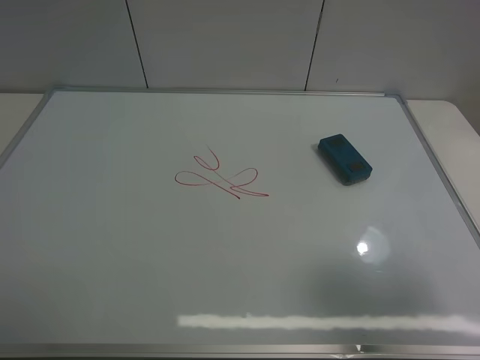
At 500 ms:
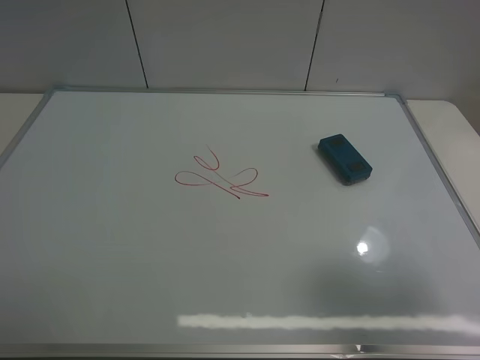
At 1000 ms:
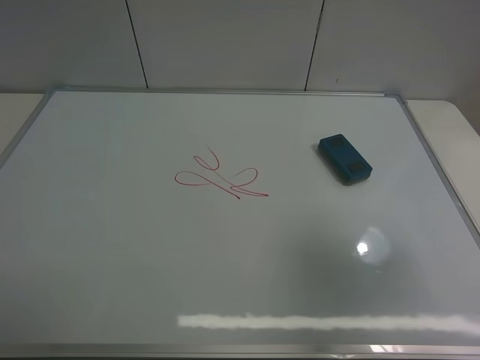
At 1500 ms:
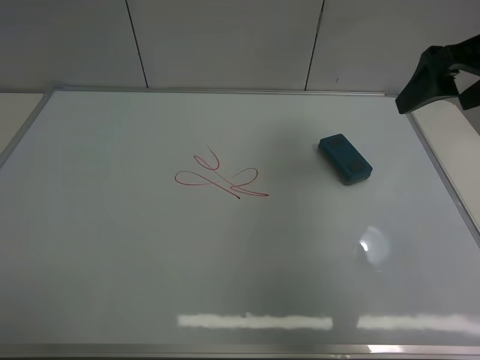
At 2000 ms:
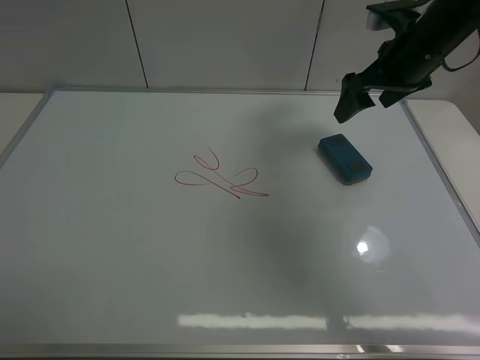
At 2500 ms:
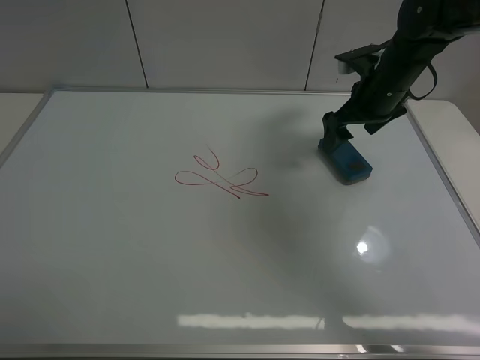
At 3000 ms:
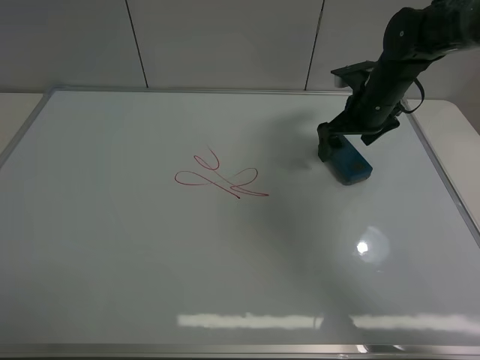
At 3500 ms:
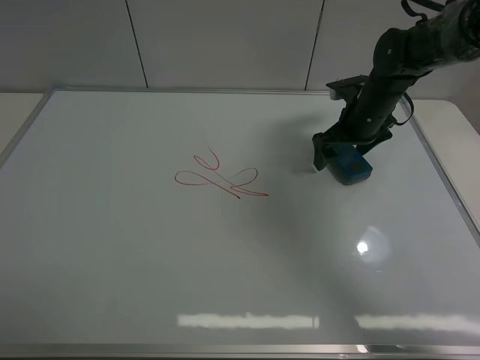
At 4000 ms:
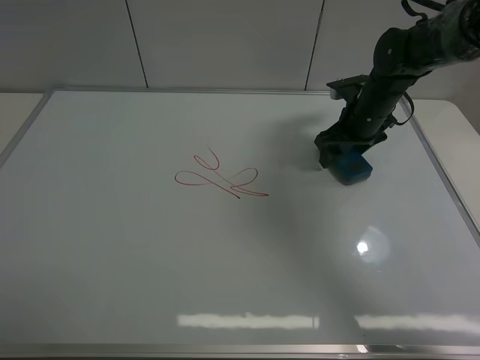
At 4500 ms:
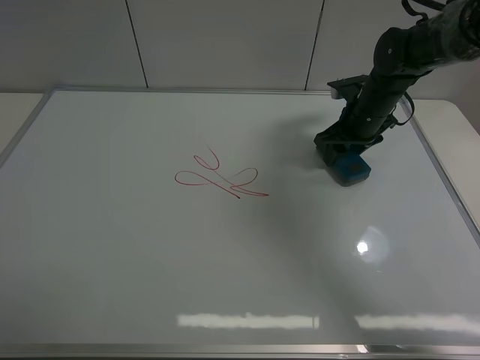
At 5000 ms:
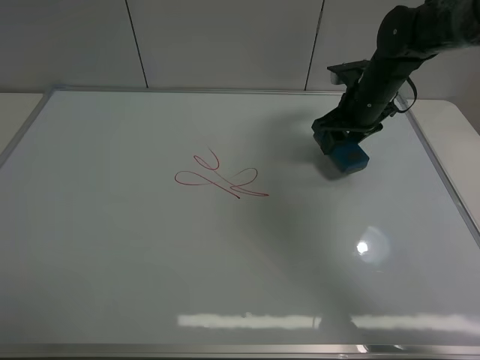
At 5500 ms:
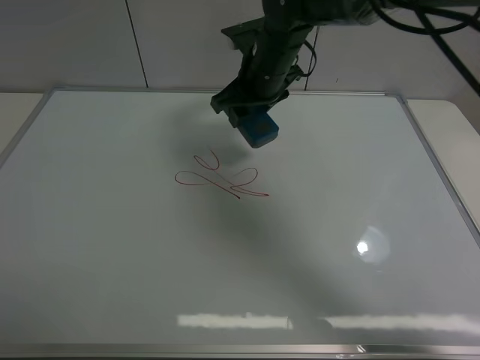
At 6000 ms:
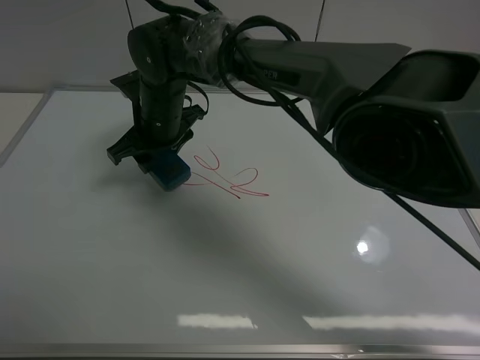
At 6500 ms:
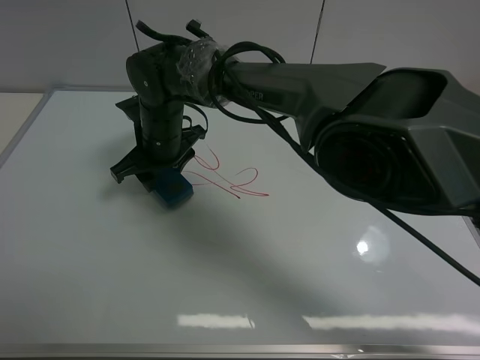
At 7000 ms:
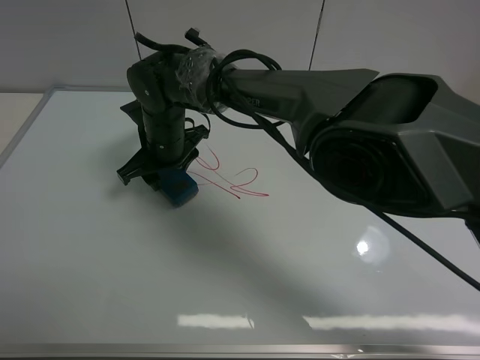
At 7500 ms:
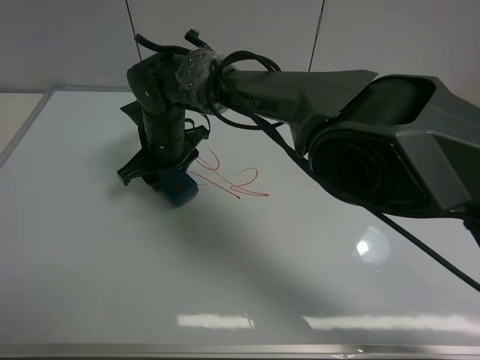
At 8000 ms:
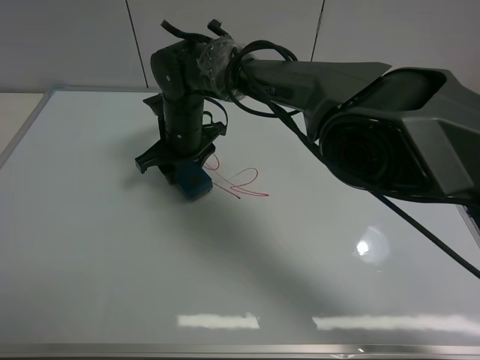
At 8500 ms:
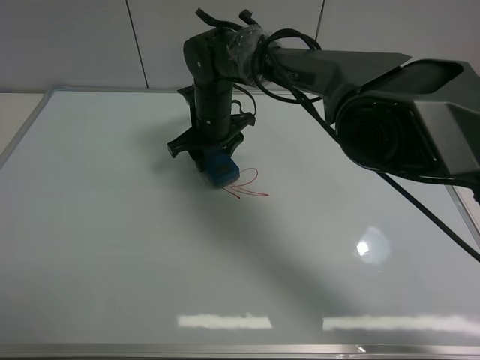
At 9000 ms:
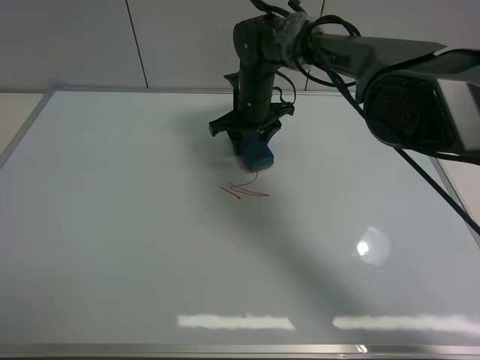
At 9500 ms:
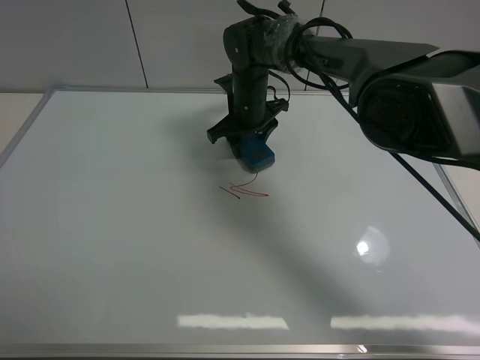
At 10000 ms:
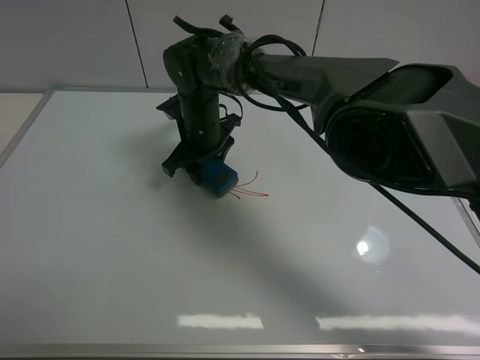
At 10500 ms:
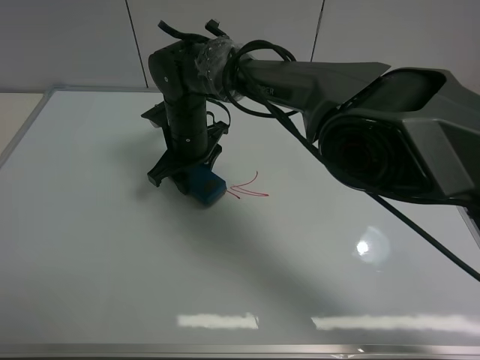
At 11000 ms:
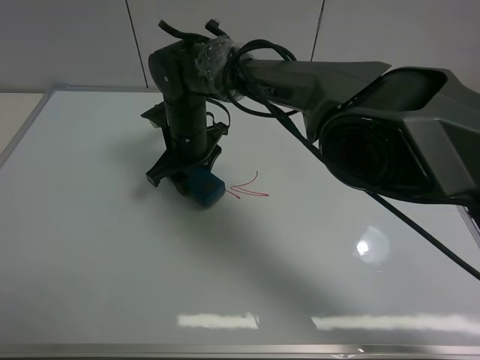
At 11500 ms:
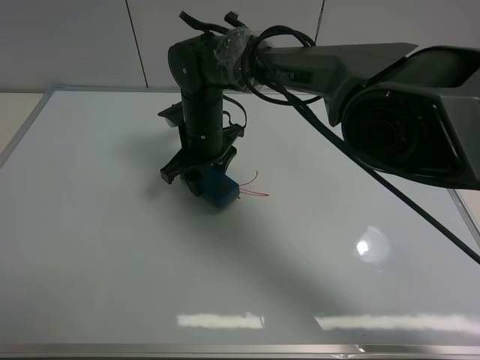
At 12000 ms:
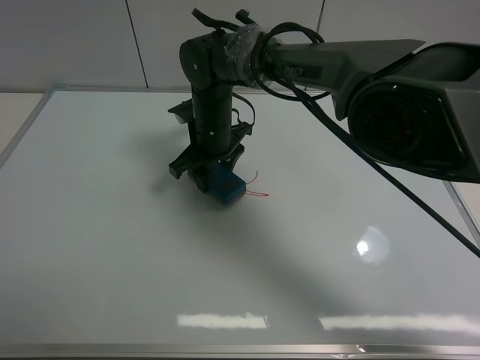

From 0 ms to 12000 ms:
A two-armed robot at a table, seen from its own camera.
Task of the whole recording: use the right gripper to pick up the board eraser, wipe the notes on the whiteboard clean, and then put them back in place.
Step, from 0 ms to 5000 ms: Pick up the board eraser with right gripper.
From 0 ms to 2000 ms: The right gripper travels forward by about 35 cm.
From 2000 ms to 4000 ms: The right gripper goes roughly 10 cm downward, and closes up.
From 4000 ms to 6000 ms: The right gripper travels to the left by roughly 30 cm.
From 6000 ms to 8000 ms: The right gripper moves approximately 5 cm.
From 8000 ms to 10000 ms: The right gripper moves roughly 10 cm to the right and comes back.
From 10000 ms to 12000 ms: The grippers move only a little.

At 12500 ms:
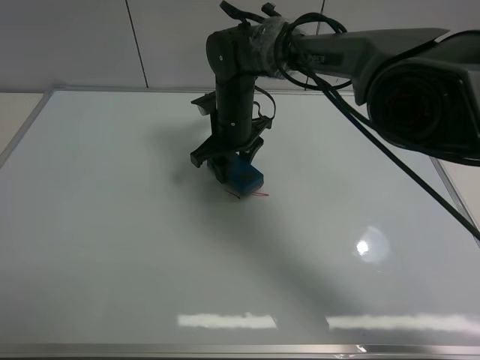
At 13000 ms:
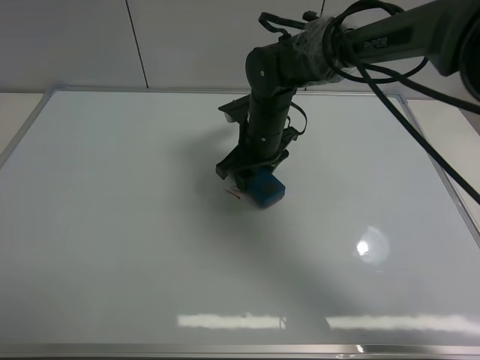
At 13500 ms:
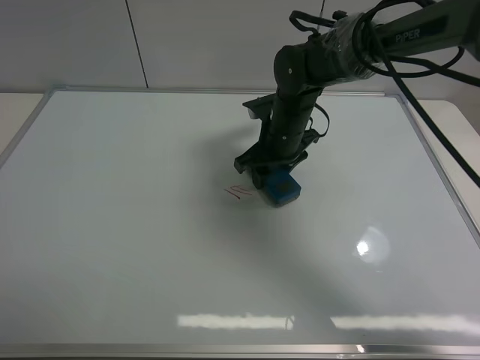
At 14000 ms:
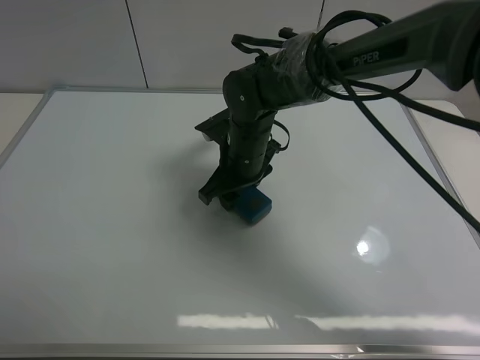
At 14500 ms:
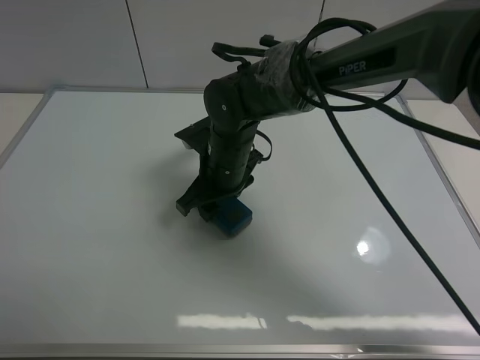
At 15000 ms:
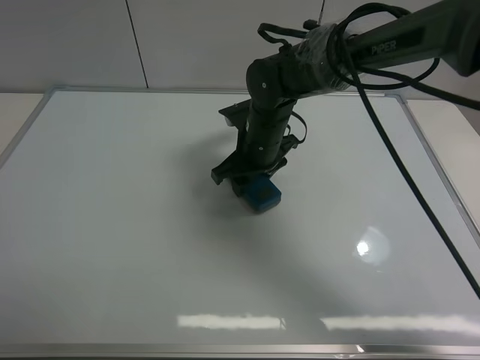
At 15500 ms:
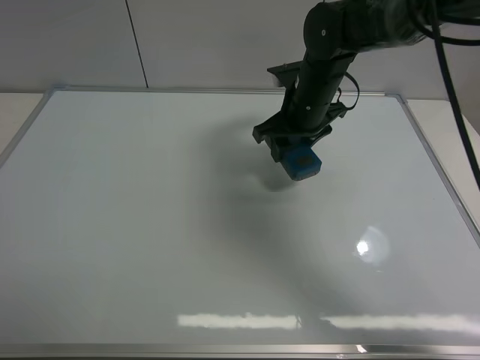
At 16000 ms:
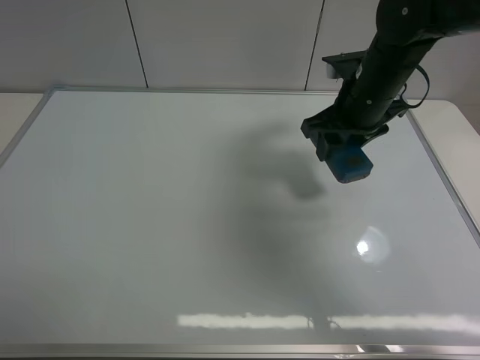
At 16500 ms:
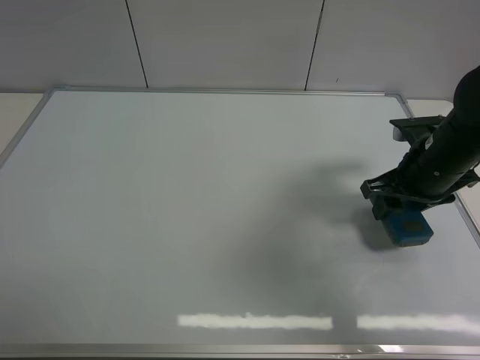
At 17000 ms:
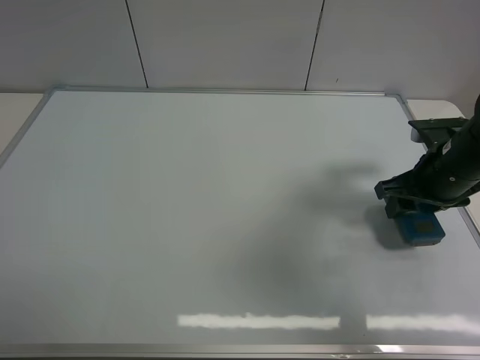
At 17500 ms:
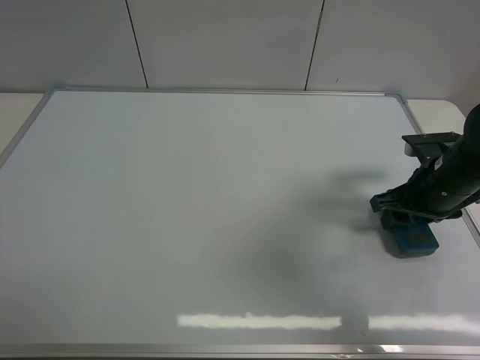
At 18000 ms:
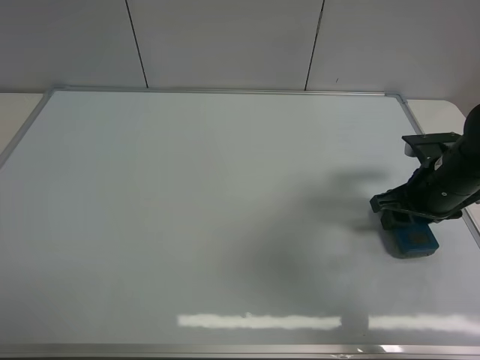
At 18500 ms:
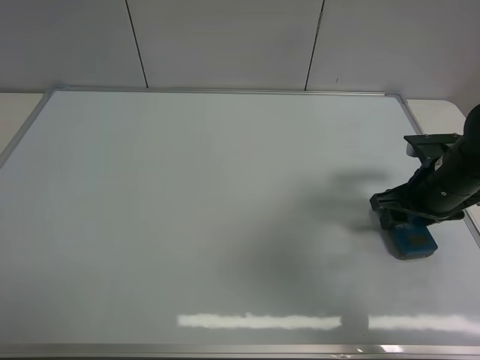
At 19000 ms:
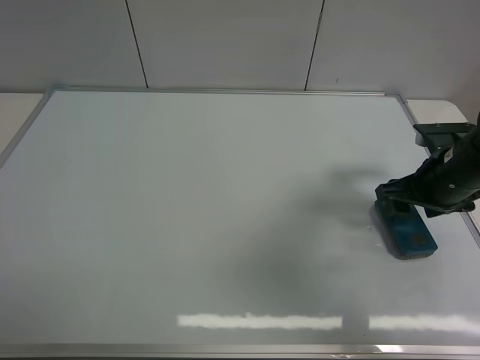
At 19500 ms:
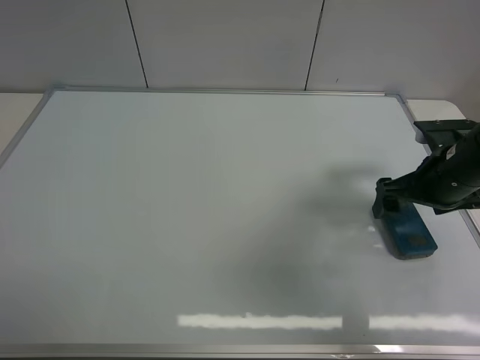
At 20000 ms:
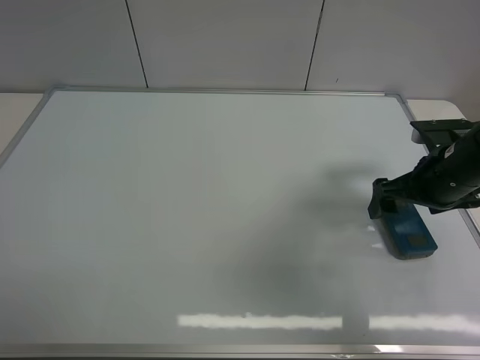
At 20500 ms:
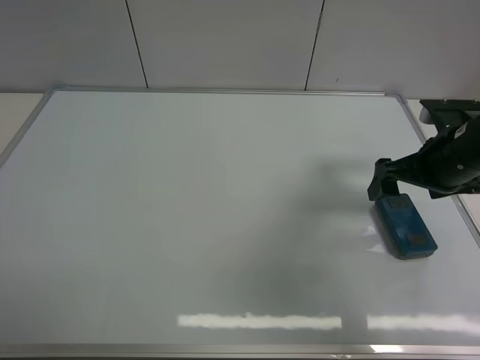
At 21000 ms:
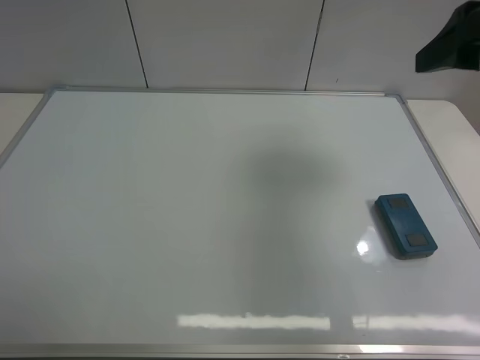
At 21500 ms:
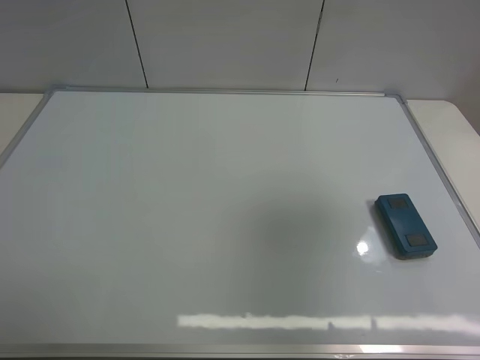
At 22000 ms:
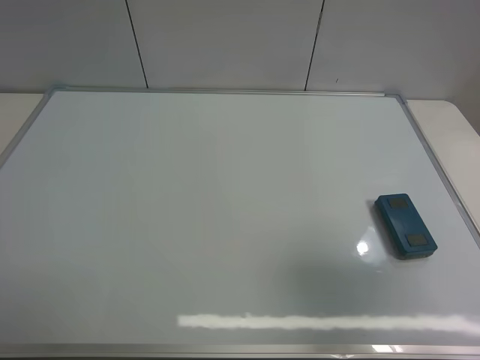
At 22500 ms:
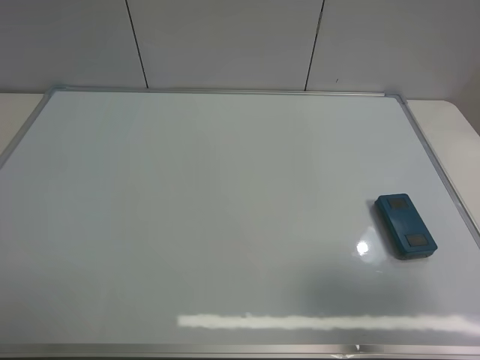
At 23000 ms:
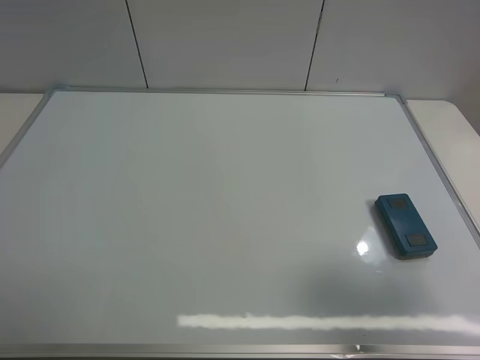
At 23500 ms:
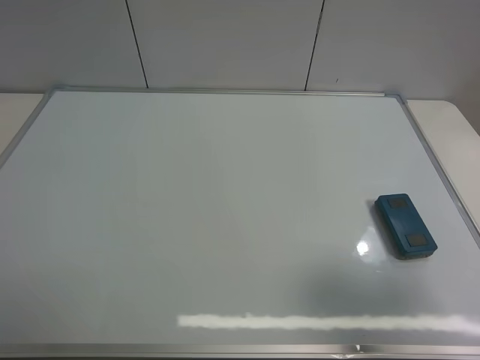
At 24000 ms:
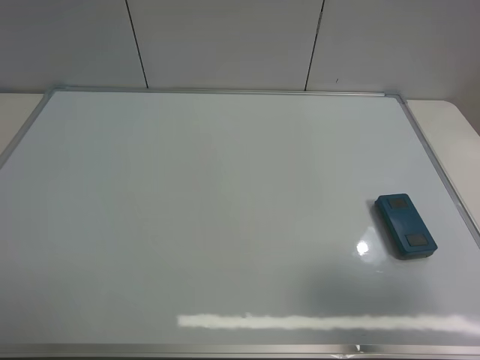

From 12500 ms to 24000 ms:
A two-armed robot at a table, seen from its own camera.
Task of the whole recording: use the right gripper to pick up the board eraser, wipe the notes on the whiteboard clean, and then put them back in place.
Step, from 12500 ms to 15000 ms: Wipe off the writing on the board with right gripper.
Step, from 15500 ms to 19000 ms: Place the board eraser on the right side of board with right gripper.
From 12500 ms to 14500 ms: The right gripper is displaced backward by some 10 cm.
From 14500 ms to 16500 ms: The right gripper travels to the right by about 25 cm.
From 16500 ms to 18500 ms: There are only small adjustments of the grippers.
From 18500 ms to 20000 ms: The right gripper opens its fingers.
From 20000 ms to 22000 ms: The right gripper travels backward and upward by about 30 cm.

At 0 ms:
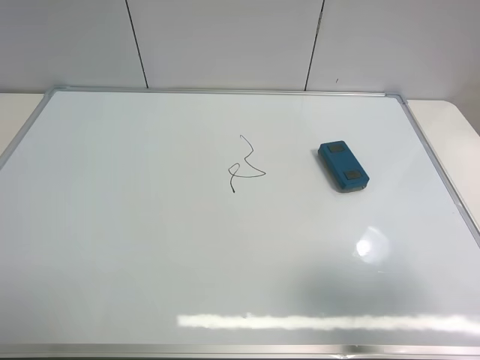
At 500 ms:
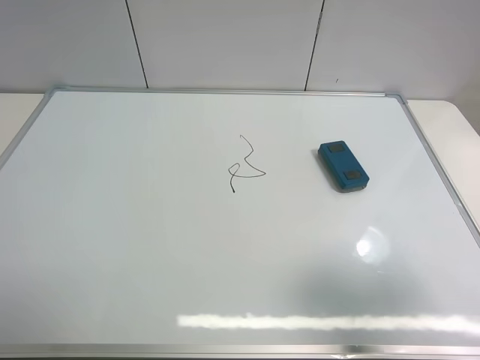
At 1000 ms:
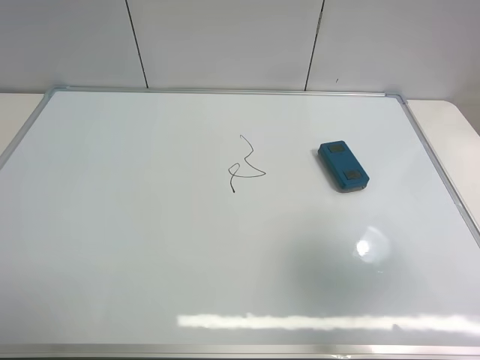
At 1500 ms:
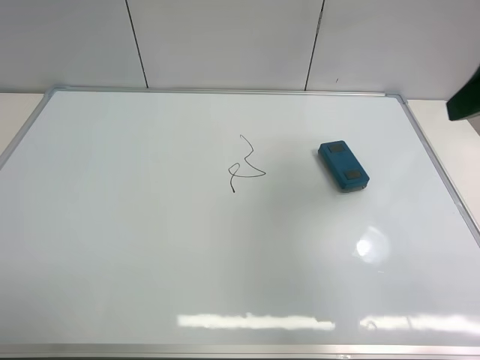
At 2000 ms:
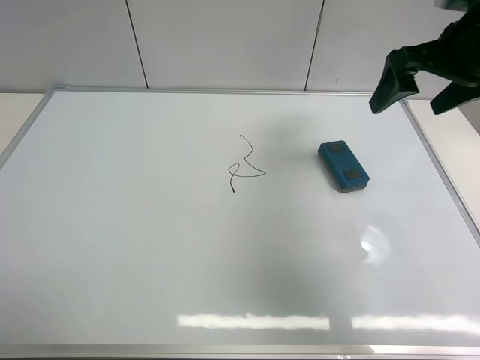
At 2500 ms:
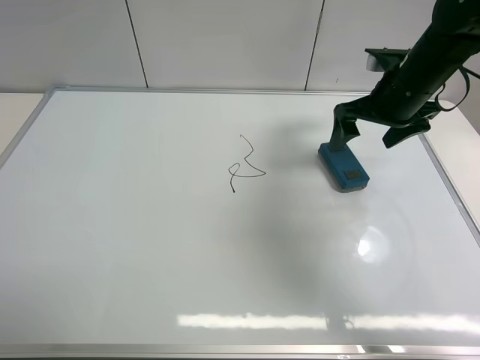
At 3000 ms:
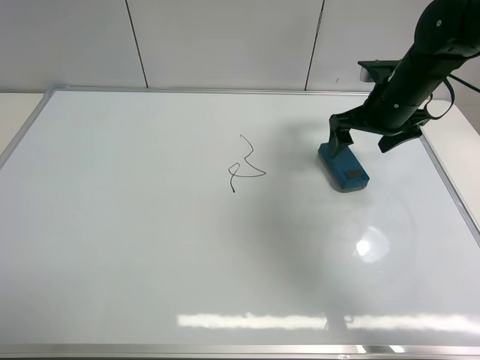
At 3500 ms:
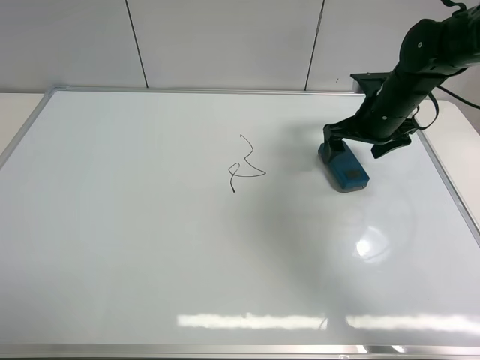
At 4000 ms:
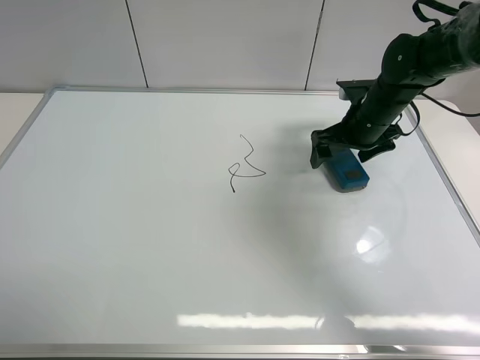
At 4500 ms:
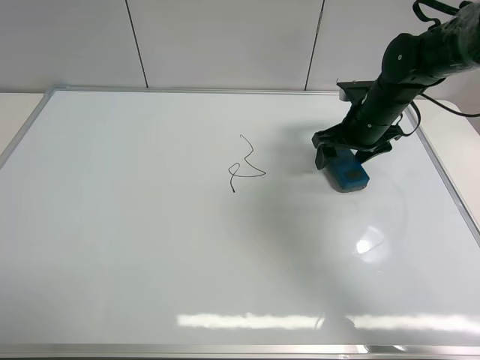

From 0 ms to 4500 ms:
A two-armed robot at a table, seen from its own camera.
Task of the whole recording: use the right gripper to pick up the board eraser, wipe the notes on the whiteboard clean, and then put them back in place.
From 0 ms to 2000 ms: The right gripper heads forward, covering about 30 cm.
From 2000 ms to 4500 ms: The right gripper moves downward and forward, about 15 cm, and closes.
